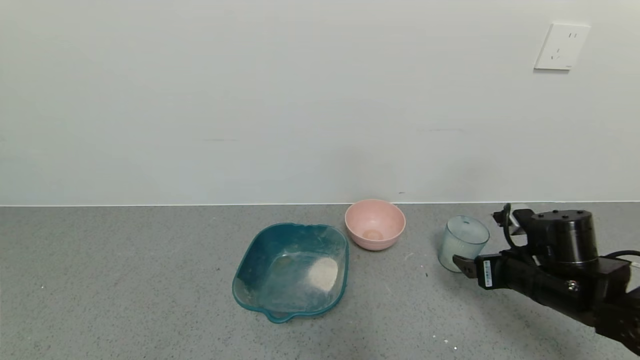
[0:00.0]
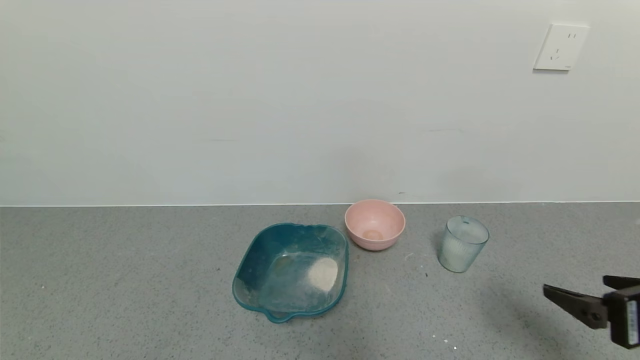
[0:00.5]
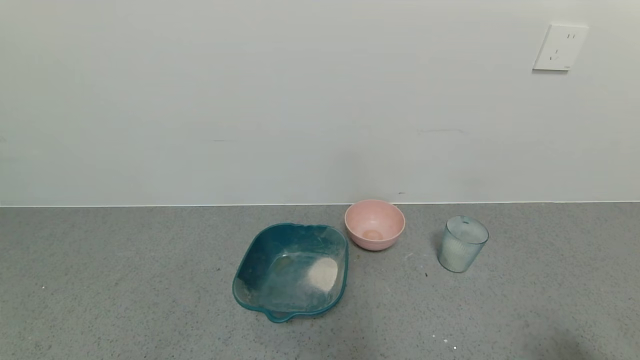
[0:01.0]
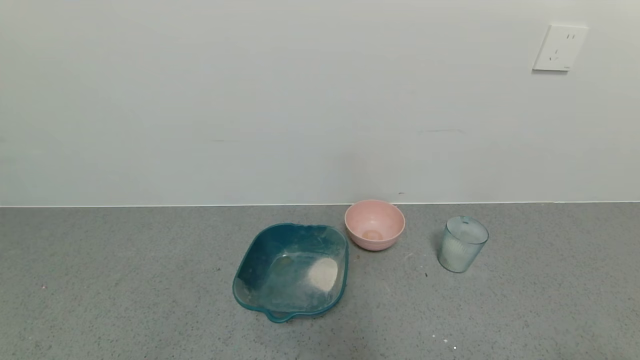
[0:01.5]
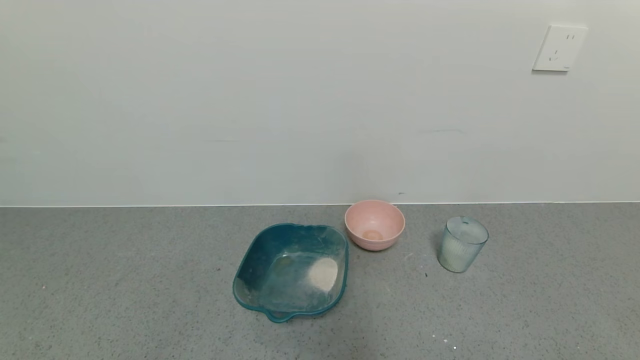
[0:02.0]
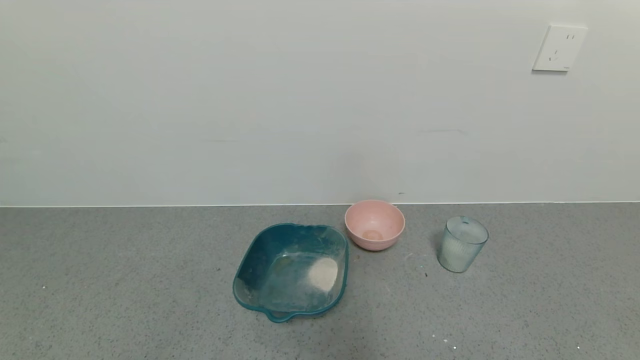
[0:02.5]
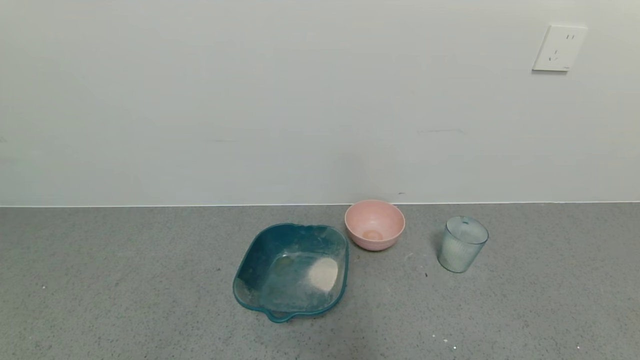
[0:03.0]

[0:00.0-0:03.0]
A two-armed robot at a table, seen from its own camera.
Task of the whole recording: use a gripper to pick up the cup and pour the powder into a bowl or tray.
0:00.0 to 0:01.5: The right gripper moves backward, roughly 30 cm.
